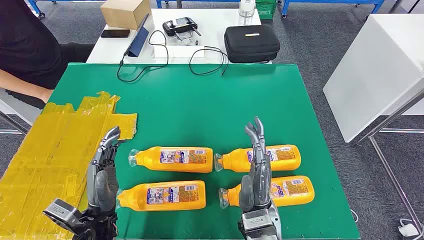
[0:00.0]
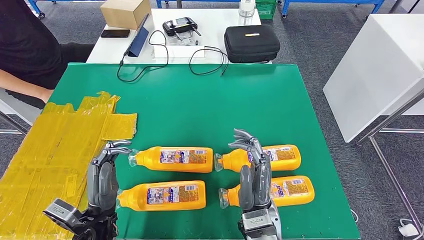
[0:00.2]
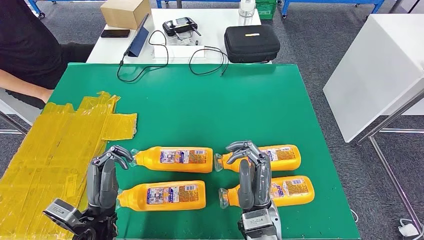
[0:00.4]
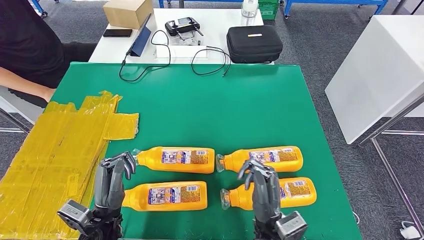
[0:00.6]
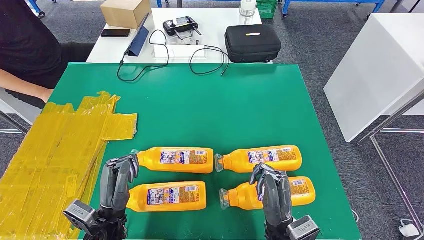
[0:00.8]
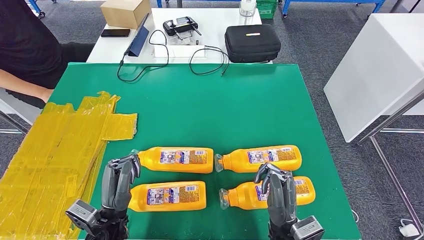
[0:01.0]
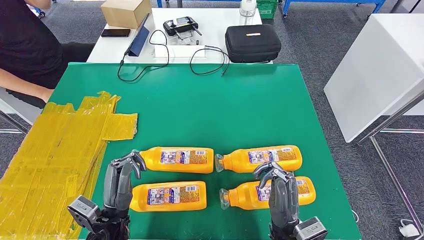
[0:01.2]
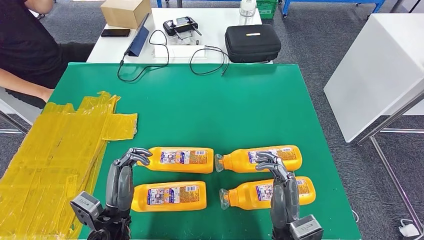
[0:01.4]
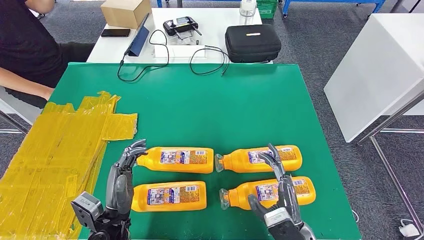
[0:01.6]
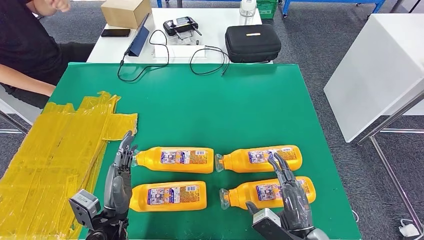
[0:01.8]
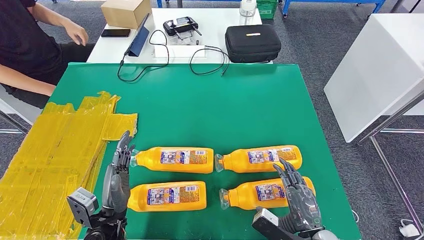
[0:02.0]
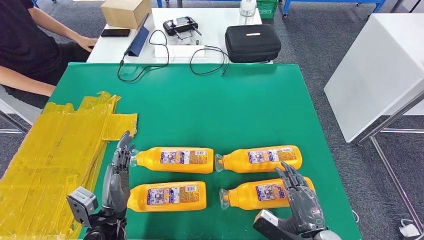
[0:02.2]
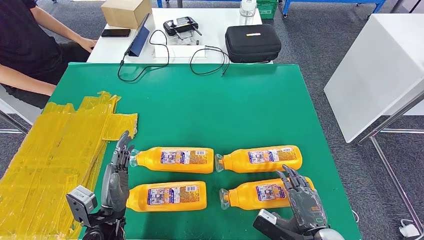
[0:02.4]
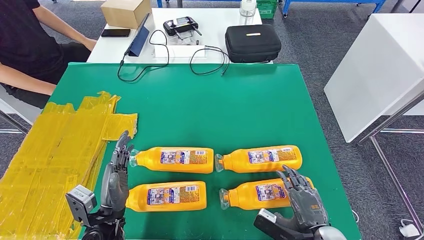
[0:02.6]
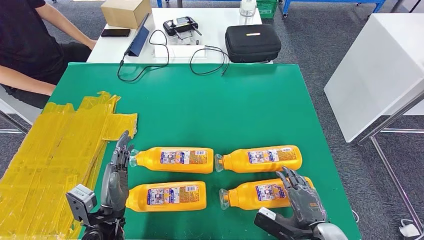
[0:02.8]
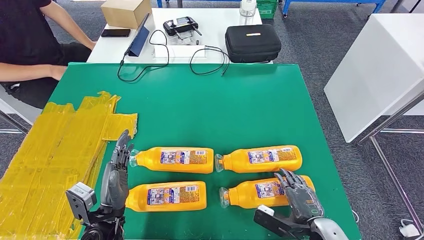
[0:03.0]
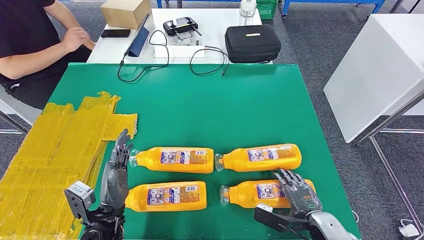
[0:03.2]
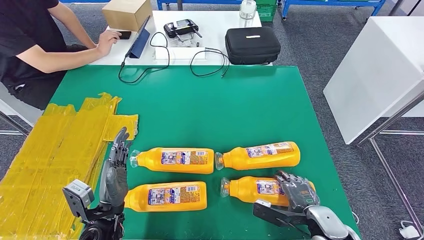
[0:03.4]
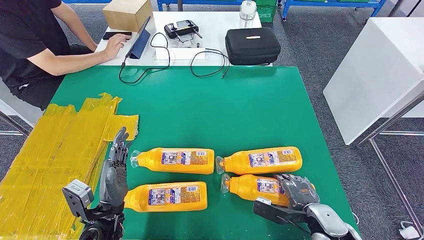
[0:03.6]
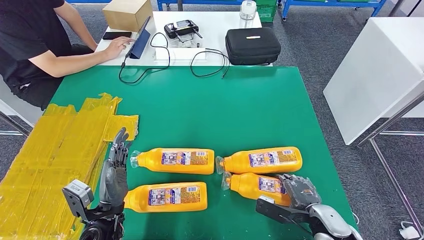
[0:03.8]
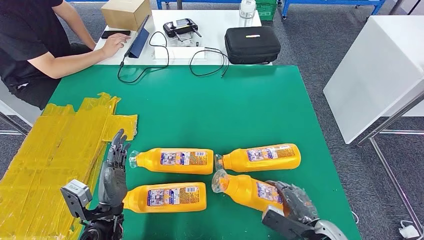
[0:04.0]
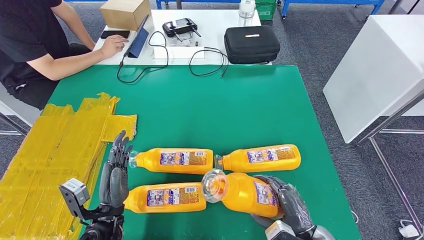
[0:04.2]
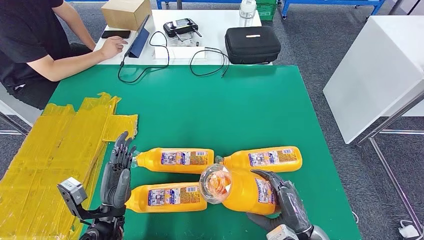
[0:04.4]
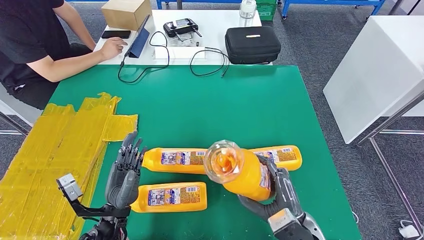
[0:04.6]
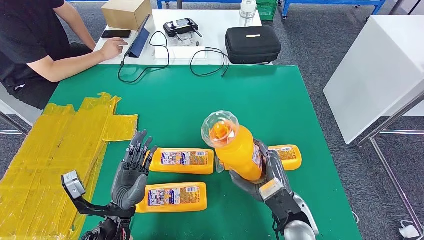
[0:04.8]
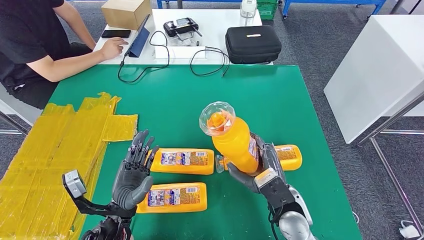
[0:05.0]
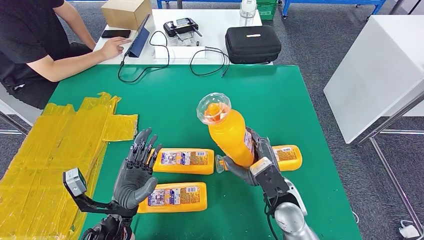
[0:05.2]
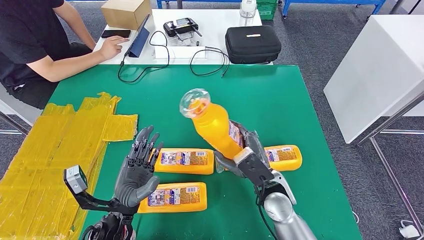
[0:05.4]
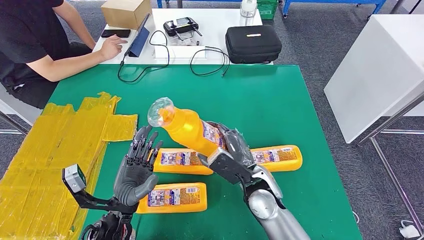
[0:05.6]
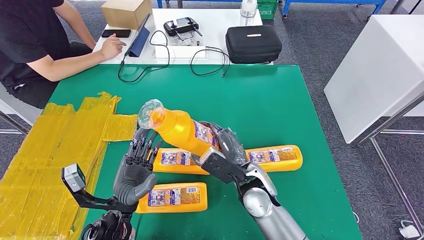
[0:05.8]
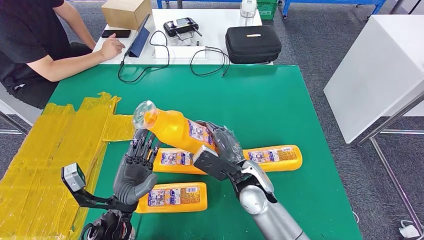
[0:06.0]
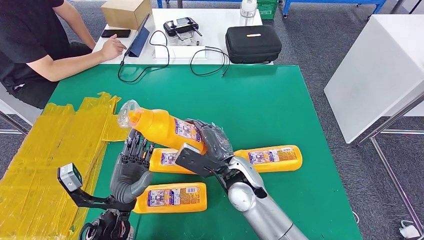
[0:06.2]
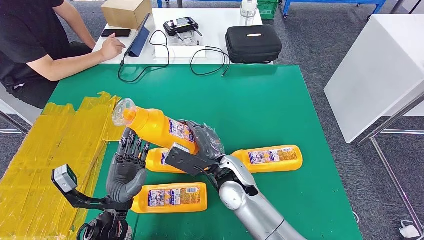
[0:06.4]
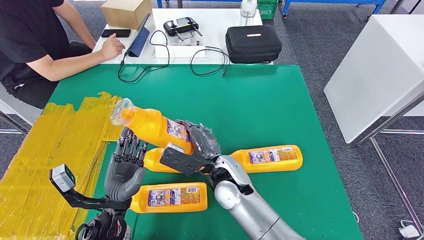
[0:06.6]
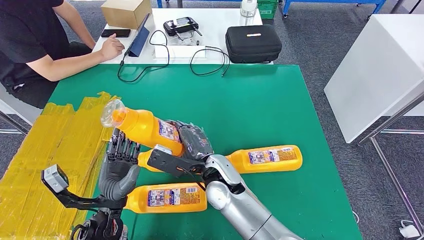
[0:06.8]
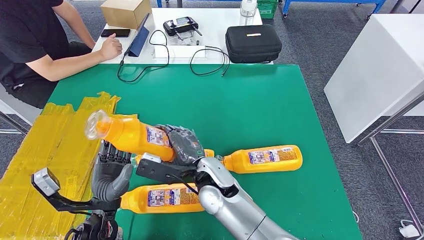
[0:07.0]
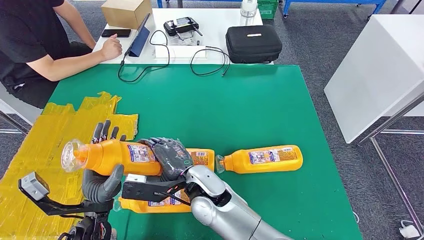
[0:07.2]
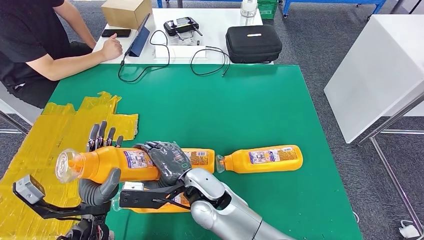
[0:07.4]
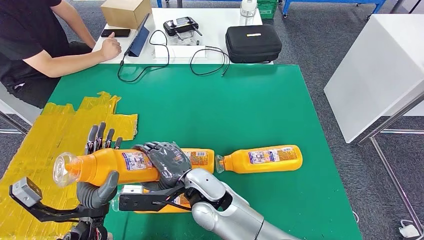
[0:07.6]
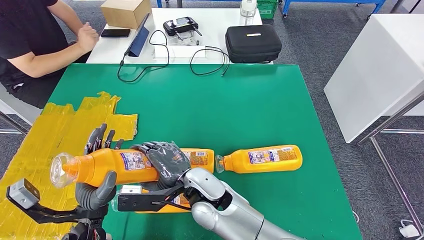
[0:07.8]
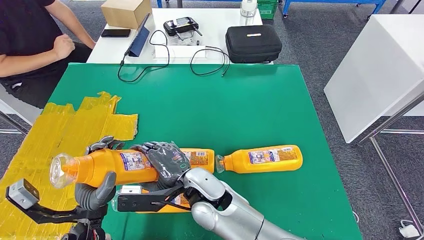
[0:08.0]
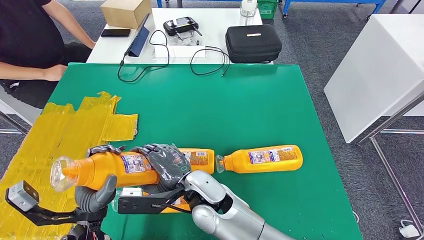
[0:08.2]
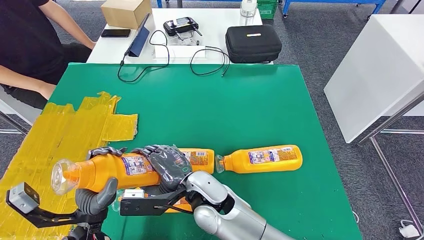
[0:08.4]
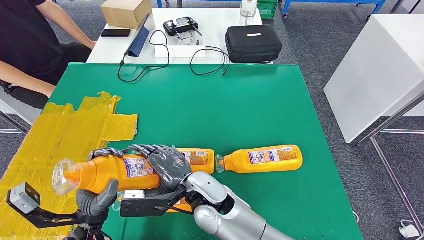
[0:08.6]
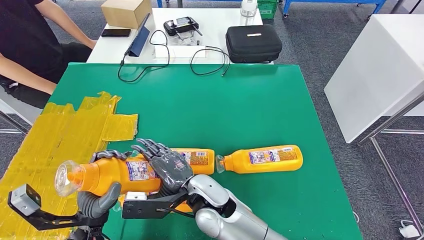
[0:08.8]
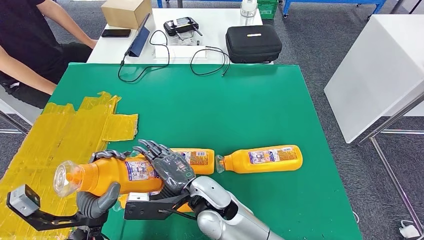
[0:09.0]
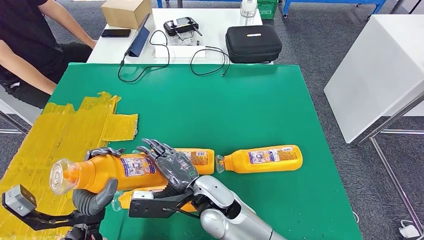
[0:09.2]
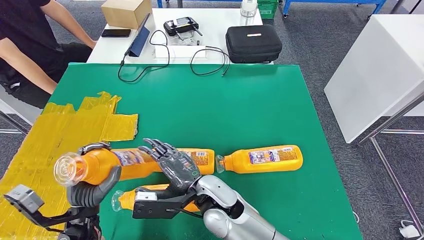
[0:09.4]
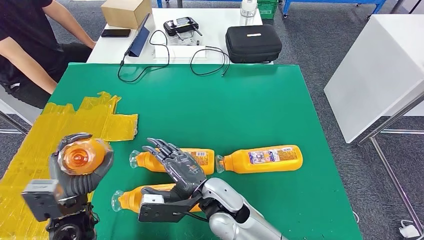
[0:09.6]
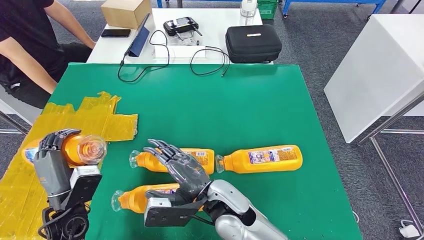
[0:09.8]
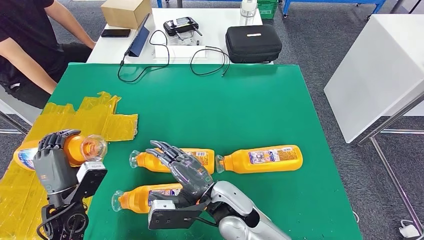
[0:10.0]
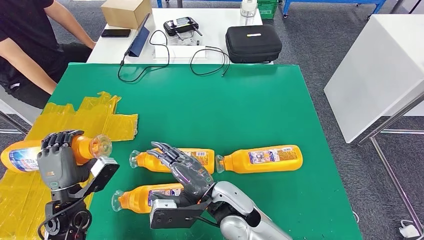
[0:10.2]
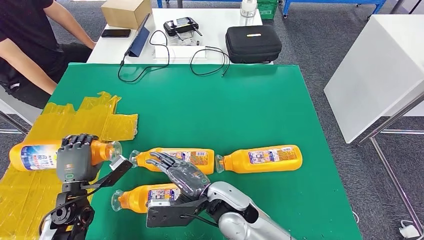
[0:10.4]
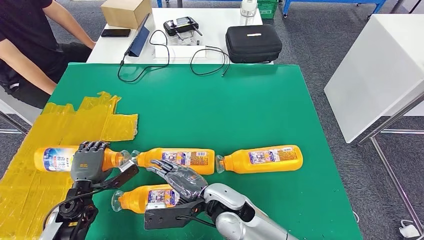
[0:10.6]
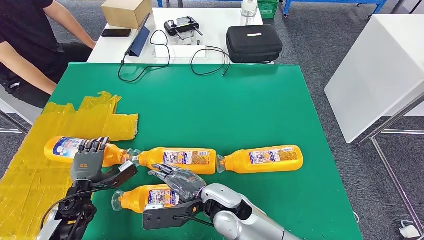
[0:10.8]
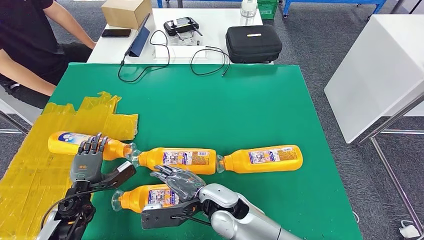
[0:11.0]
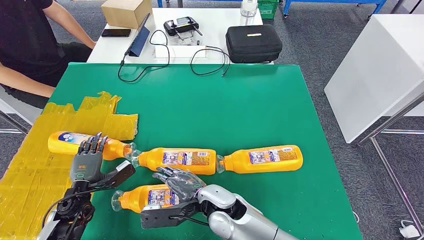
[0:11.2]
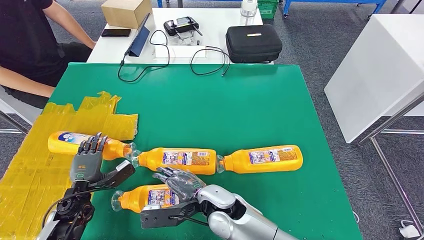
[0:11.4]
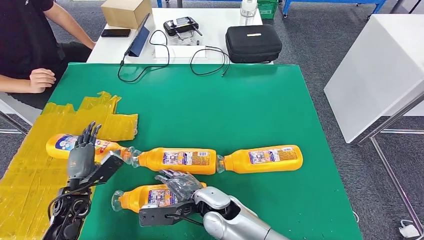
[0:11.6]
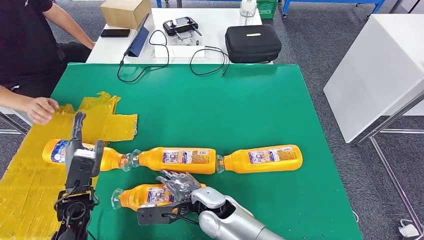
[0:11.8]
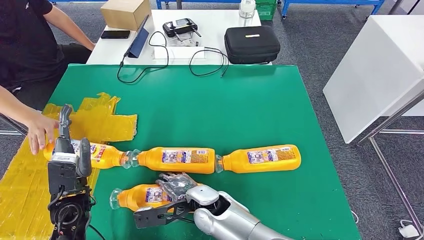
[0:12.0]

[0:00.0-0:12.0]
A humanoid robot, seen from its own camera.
Step, 0:00.0 to 0:05.2: Take the bottle from the table.
Step, 0:05.4 to 0:10.6: Flip the bottle to face forward.
0:01.6 to 0:03.0: The right hand is displaced to the right by some 10 cm.
0:03.0 to 0:04.4: The right hand heads to the left, covering roughly 5 cm.
0:04.4 to 0:06.0: The right hand travels forward and to the left by some 20 cm.
0:07.6 to 0:09.0: The hands stay close to where they were, moving slightly.
0:09.0 to 0:10.4: The left hand heads to the left and forward, covering roughly 10 cm.
0:10.4 to 0:12.0: The right hand shifts some 5 cm downward, while the left hand moves approximately 5 cm.

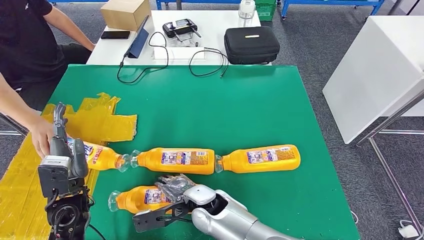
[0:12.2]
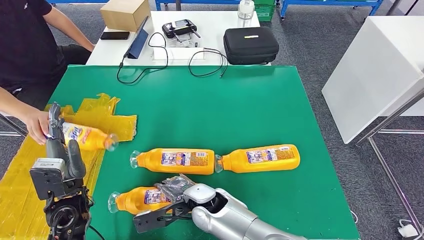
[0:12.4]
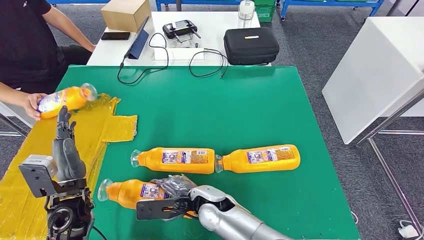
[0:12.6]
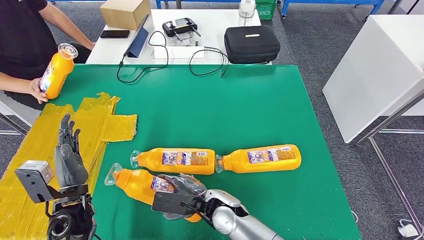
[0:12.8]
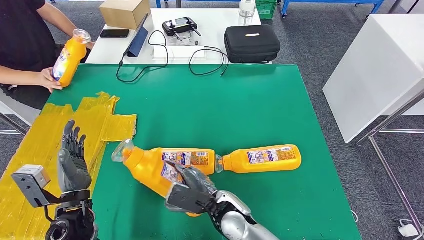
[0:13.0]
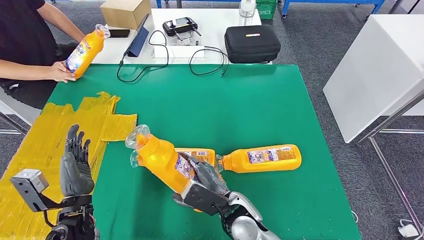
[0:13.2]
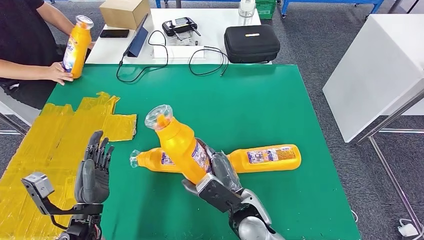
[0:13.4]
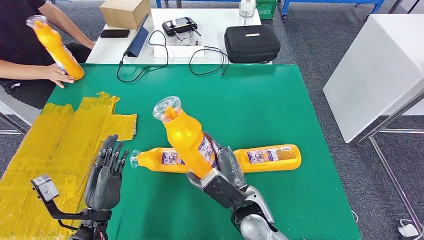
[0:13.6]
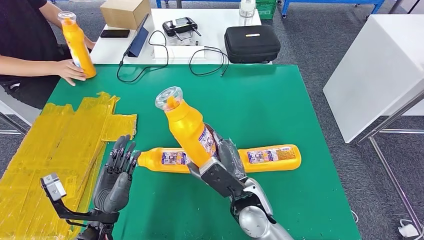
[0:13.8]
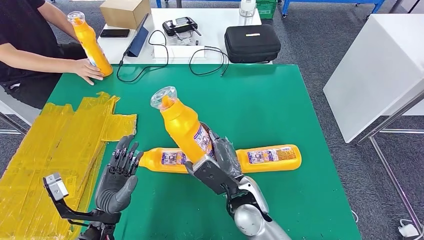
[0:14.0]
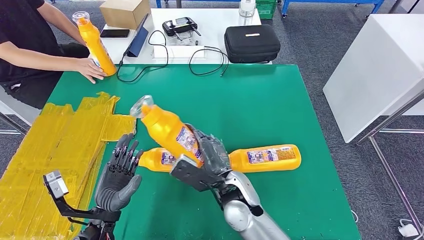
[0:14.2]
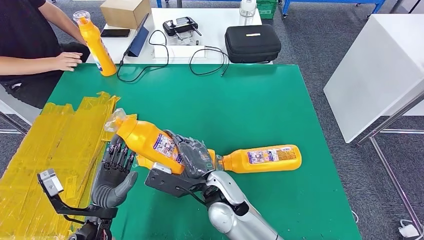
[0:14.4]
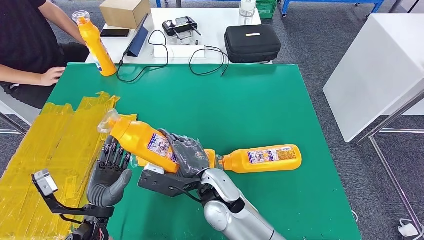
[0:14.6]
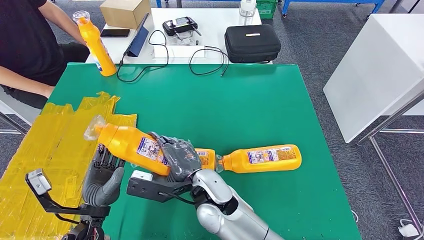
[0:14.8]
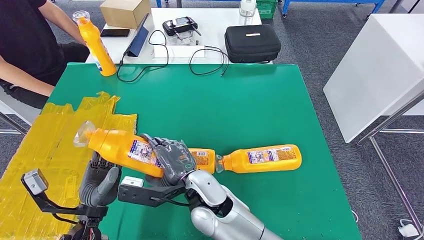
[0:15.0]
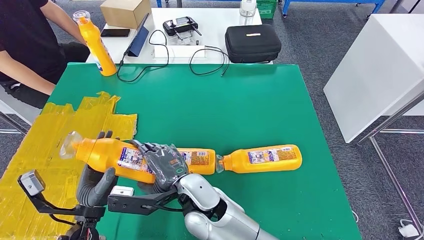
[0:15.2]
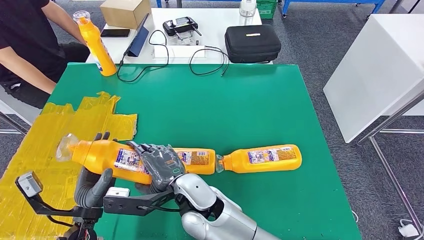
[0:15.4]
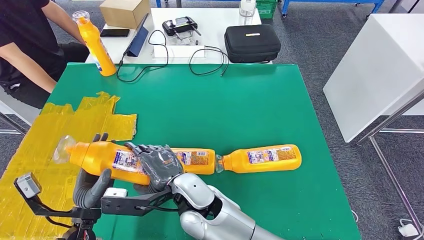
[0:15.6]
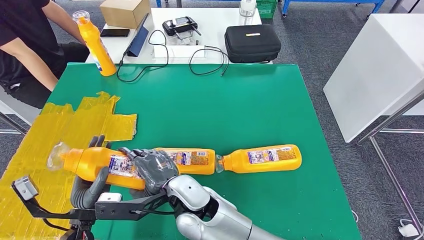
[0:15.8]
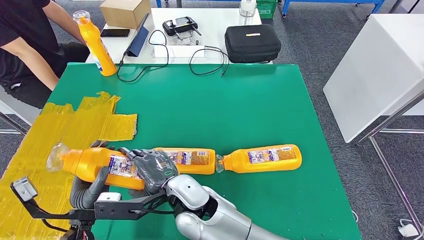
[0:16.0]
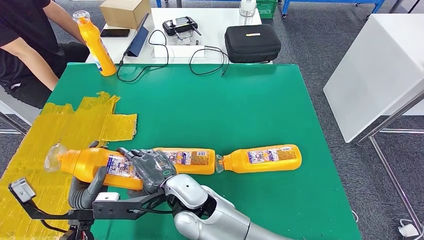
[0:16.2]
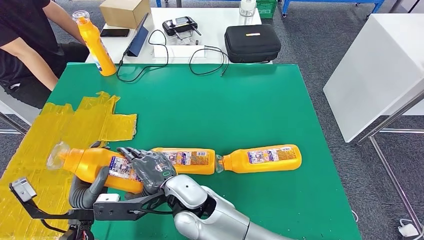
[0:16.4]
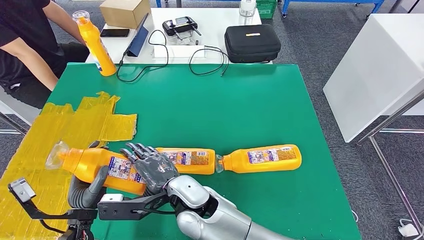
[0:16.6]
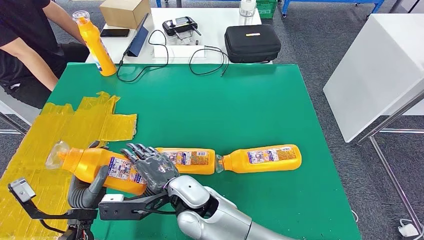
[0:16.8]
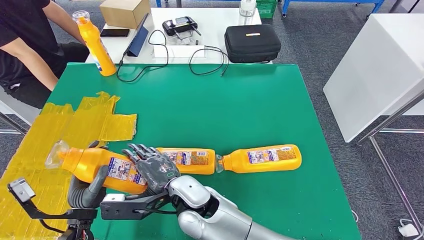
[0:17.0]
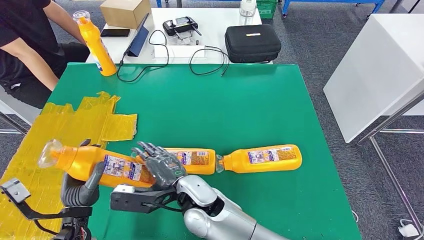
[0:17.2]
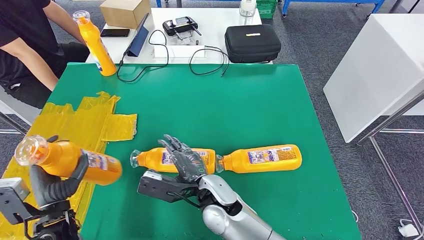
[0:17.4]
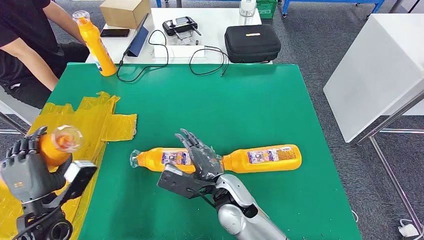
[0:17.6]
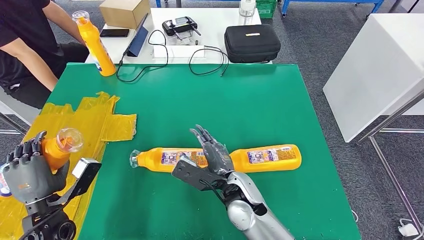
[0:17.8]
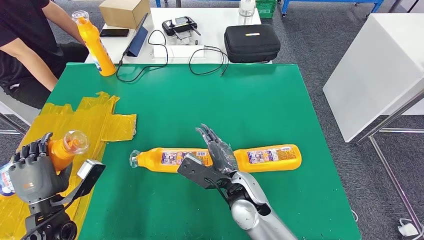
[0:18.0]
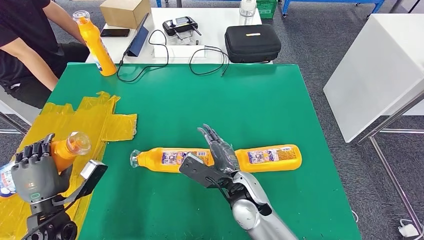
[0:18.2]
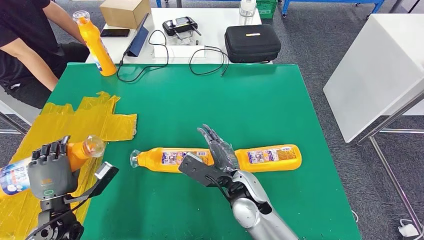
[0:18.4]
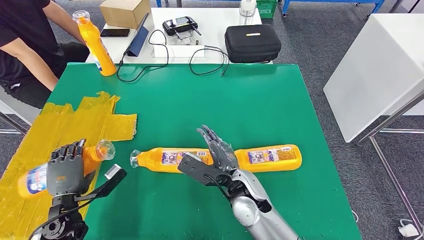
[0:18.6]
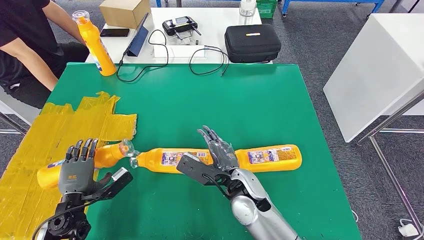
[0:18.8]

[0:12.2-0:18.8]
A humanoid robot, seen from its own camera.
Step, 0:12.2 to 0:14.6: Pick up the bottle from the table.
0:15.4 to 0:17.2: The hands stay close to where they were, moving slightly.
0:17.2 to 0:18.8: The right hand is displaced to the right by some 10 cm, while the left hand heads to the left, covering roughly 5 cm.
